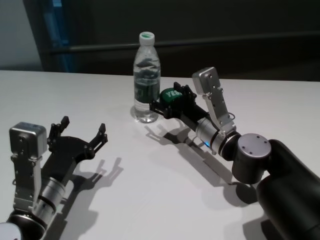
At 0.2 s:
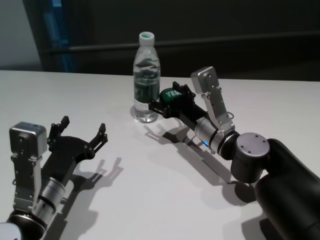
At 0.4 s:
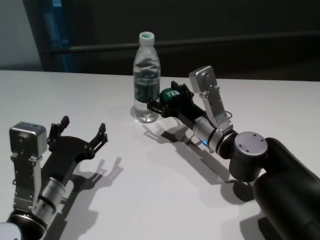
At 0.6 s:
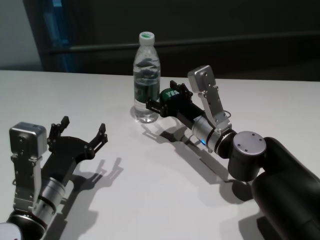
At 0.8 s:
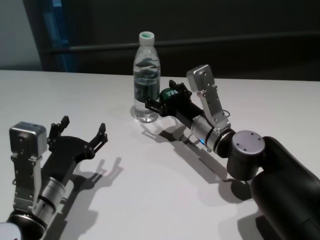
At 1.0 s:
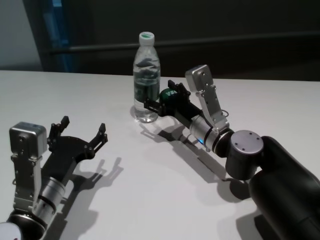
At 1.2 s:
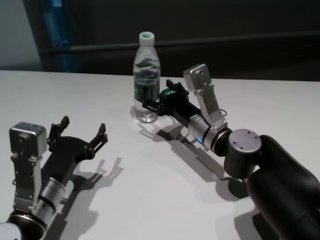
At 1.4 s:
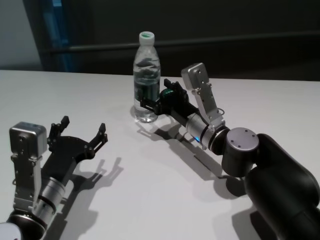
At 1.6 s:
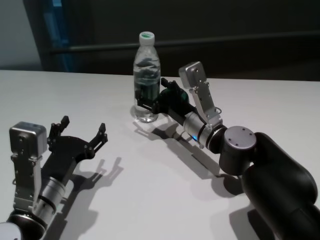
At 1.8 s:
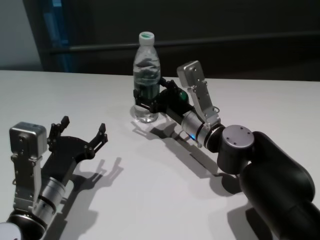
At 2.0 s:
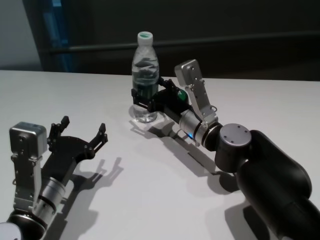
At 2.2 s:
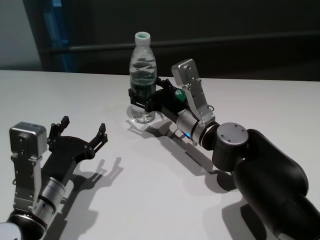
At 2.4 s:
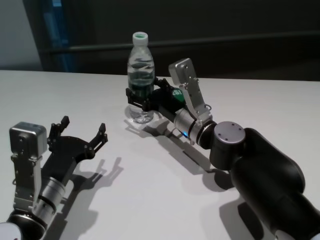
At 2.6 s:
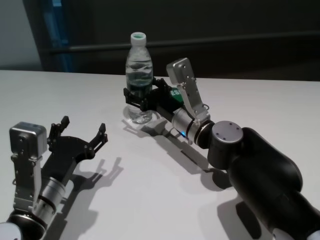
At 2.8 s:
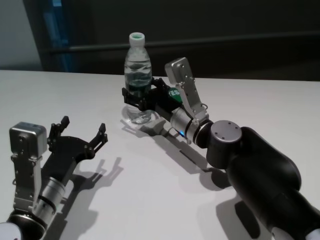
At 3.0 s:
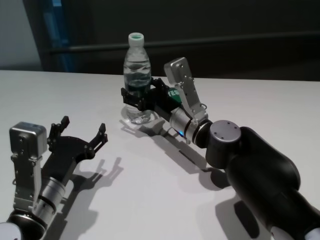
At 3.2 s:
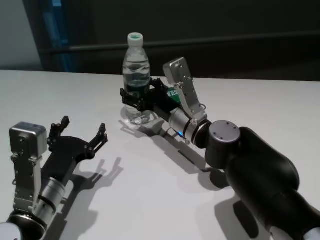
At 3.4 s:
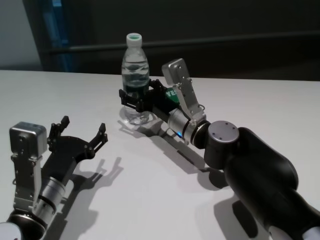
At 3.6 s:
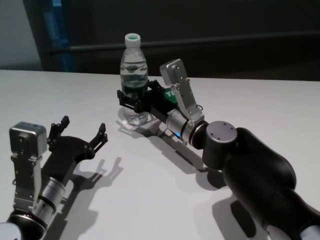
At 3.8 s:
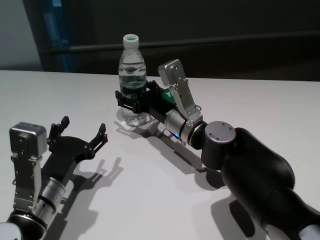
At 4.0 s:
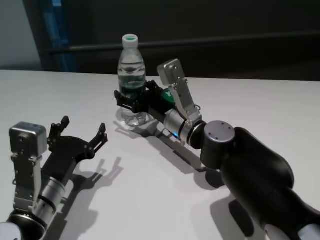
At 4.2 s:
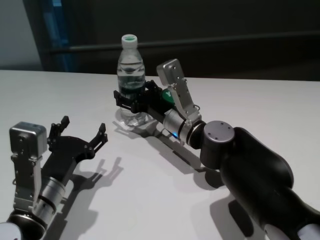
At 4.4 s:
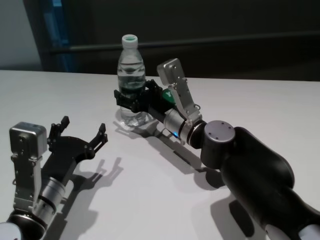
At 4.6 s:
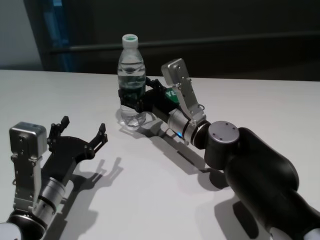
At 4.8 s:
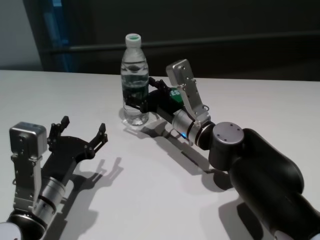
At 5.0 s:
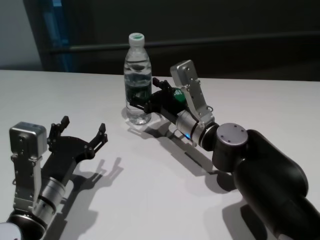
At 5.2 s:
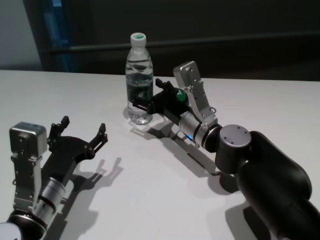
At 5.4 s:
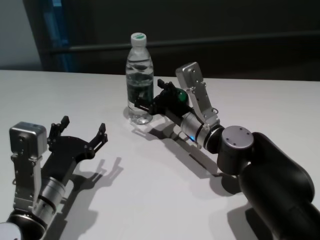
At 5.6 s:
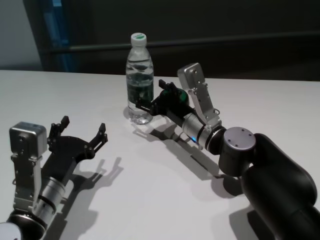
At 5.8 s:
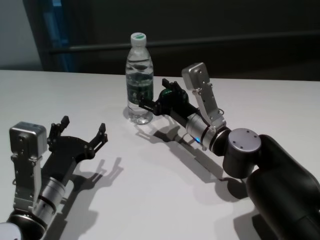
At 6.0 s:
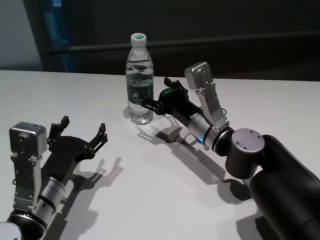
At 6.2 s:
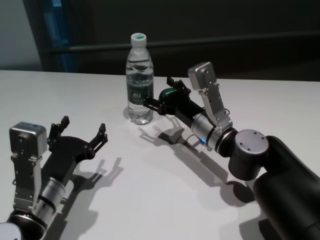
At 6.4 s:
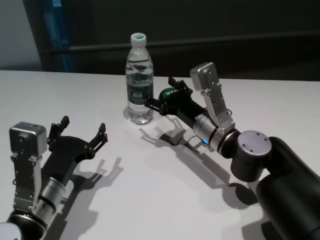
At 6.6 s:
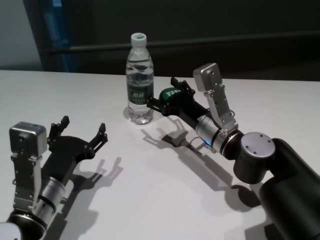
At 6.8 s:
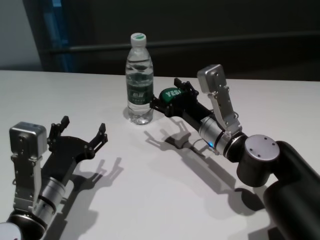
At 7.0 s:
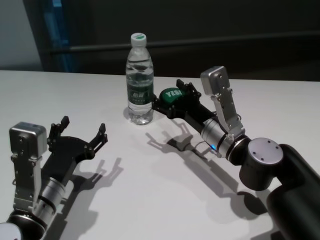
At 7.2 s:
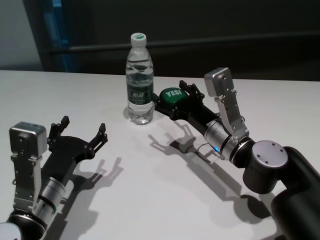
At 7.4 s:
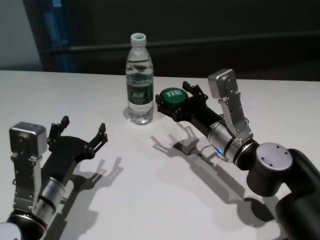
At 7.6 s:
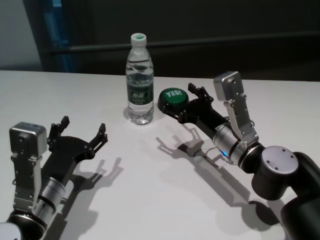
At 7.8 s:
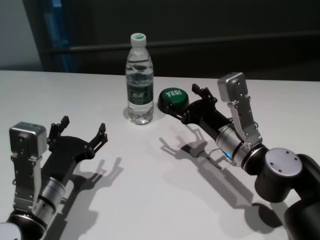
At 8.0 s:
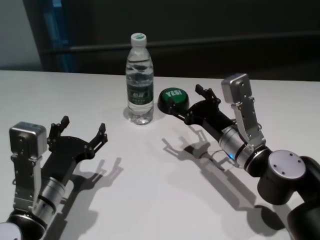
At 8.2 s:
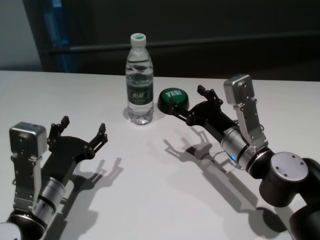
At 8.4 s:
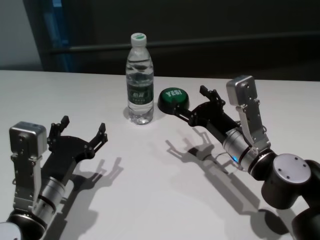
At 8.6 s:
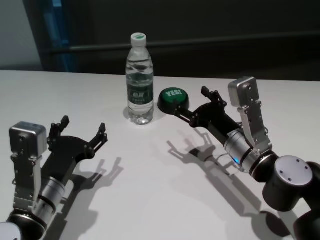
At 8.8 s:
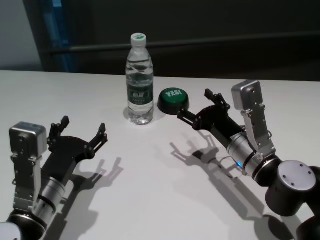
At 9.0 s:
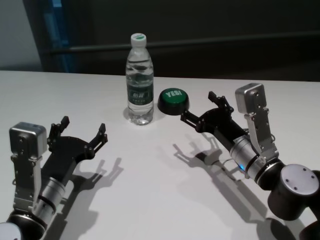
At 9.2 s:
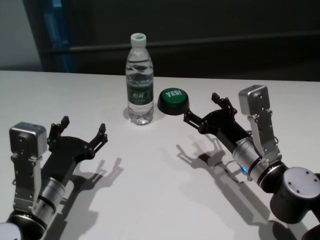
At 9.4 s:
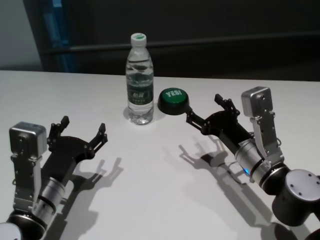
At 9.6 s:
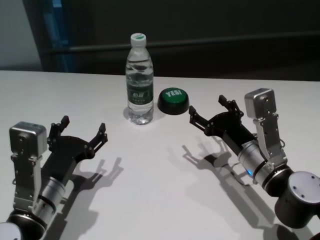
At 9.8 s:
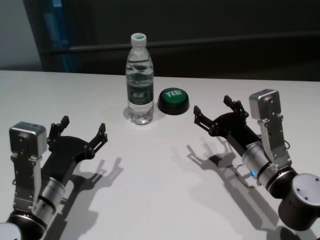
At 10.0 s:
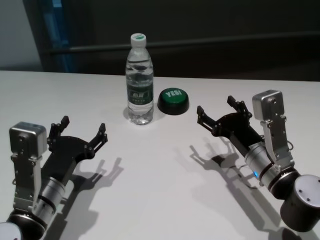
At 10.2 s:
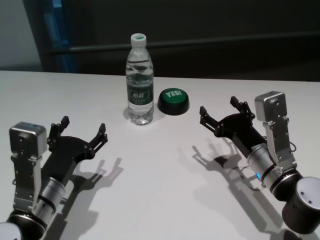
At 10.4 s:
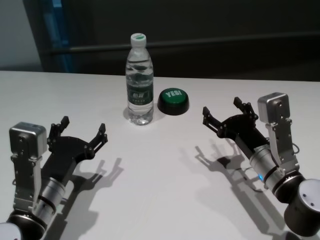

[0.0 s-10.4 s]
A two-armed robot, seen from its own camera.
Task of the whole recording: return to a safe position after touching an obstacle with your arm on the white table.
Step, 0.0 to 6.4 s: Touch the bottle with right gripper.
